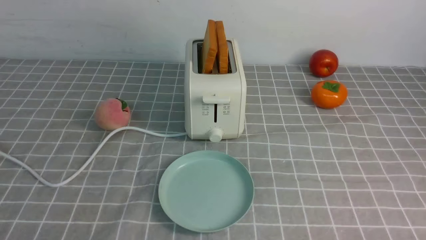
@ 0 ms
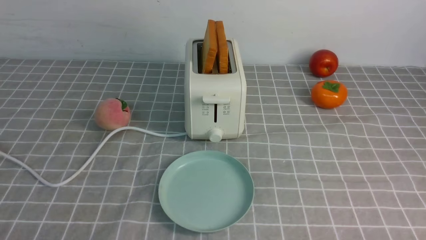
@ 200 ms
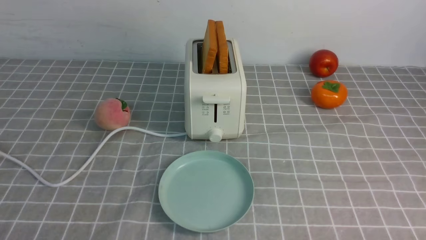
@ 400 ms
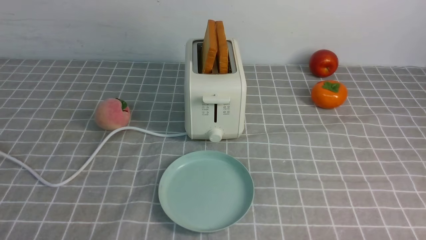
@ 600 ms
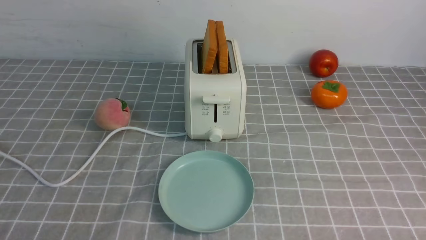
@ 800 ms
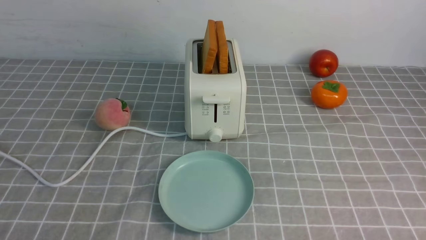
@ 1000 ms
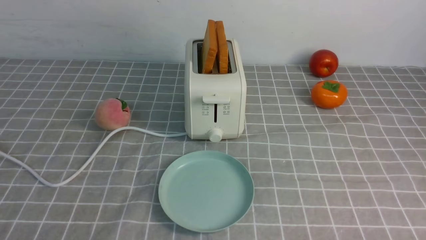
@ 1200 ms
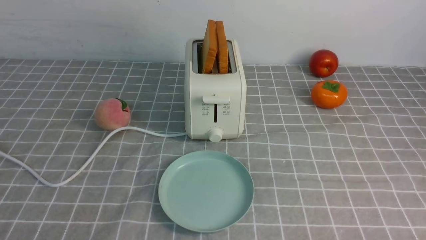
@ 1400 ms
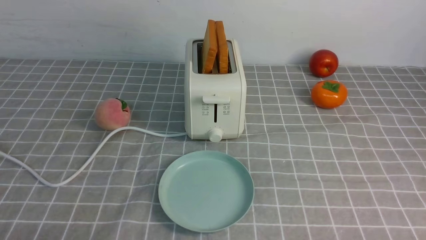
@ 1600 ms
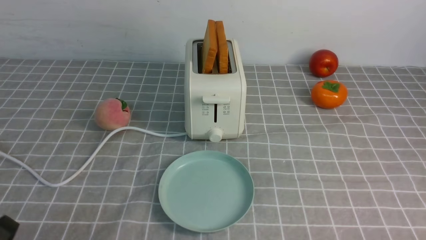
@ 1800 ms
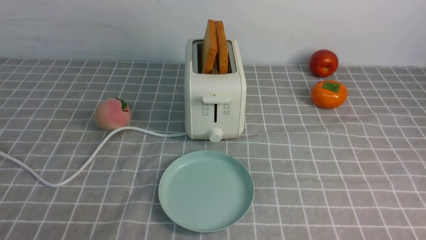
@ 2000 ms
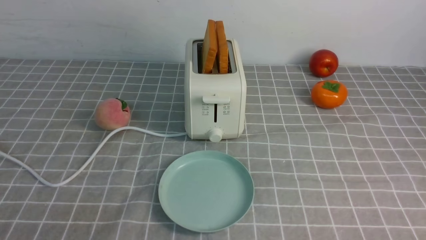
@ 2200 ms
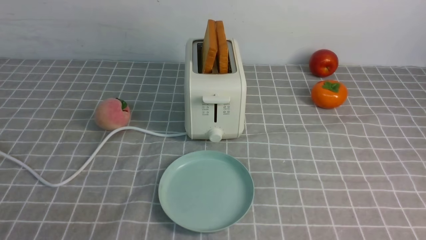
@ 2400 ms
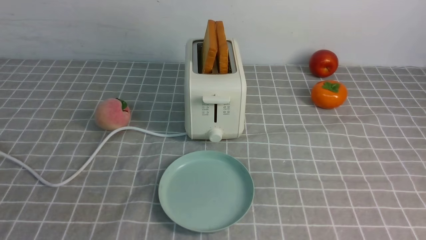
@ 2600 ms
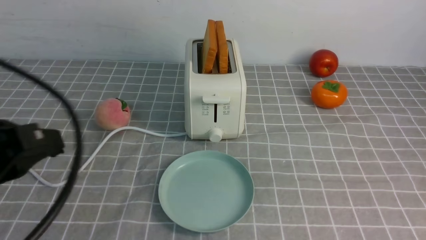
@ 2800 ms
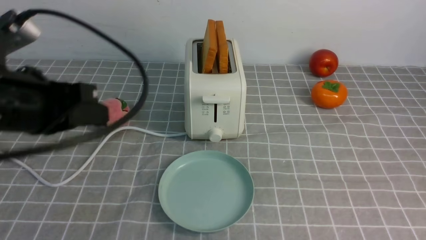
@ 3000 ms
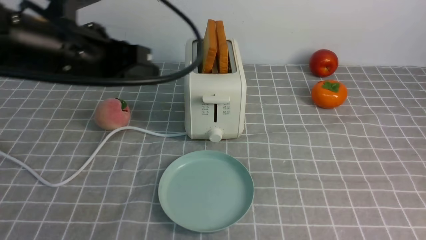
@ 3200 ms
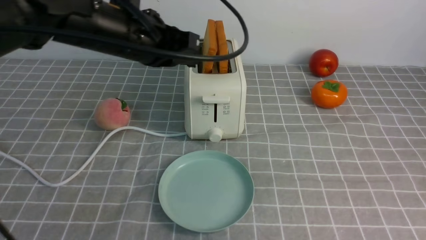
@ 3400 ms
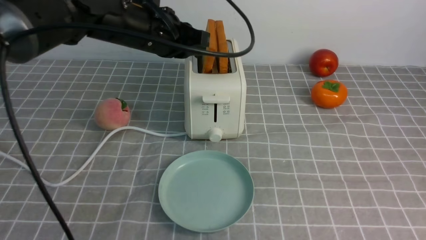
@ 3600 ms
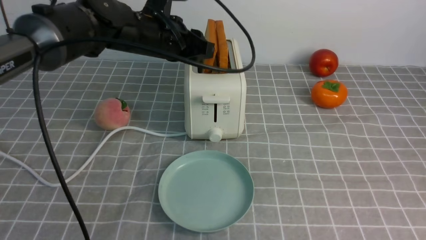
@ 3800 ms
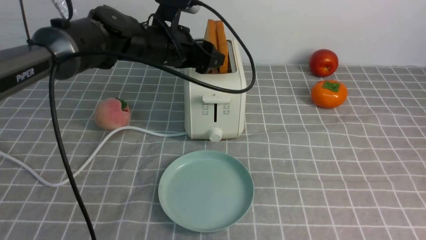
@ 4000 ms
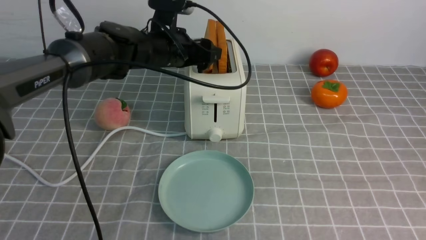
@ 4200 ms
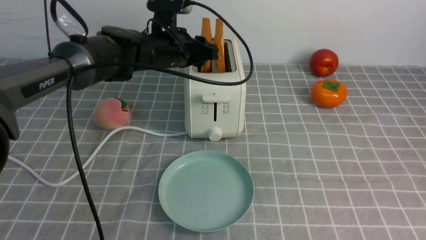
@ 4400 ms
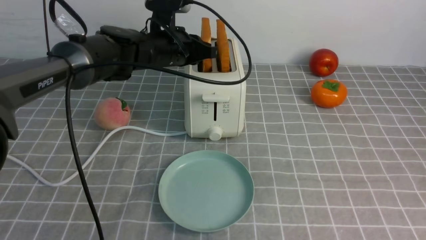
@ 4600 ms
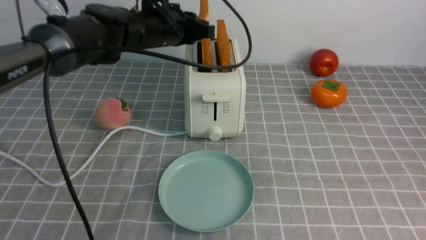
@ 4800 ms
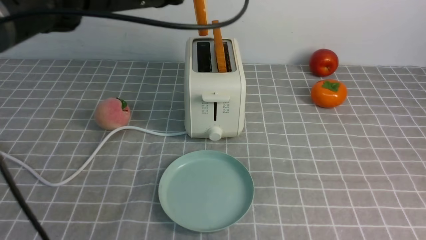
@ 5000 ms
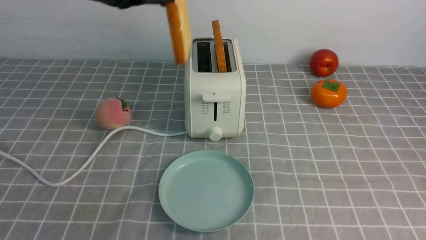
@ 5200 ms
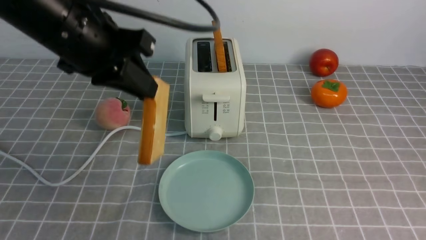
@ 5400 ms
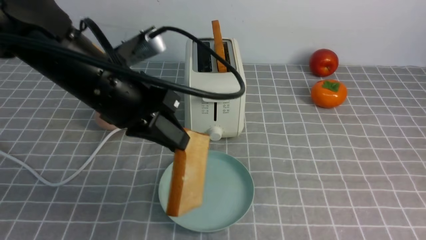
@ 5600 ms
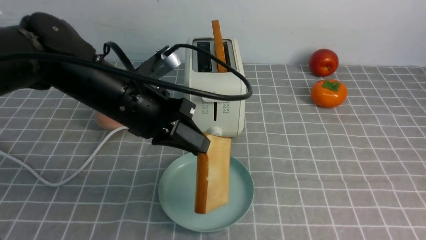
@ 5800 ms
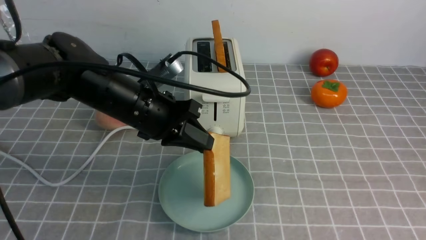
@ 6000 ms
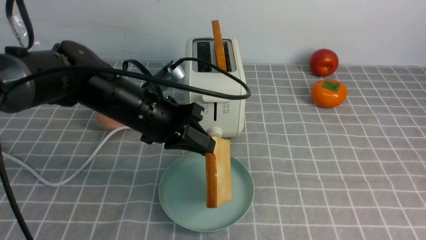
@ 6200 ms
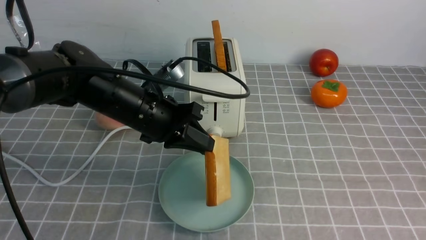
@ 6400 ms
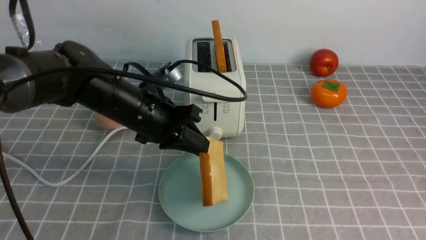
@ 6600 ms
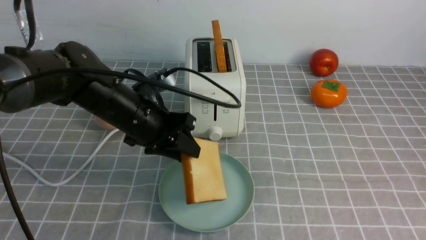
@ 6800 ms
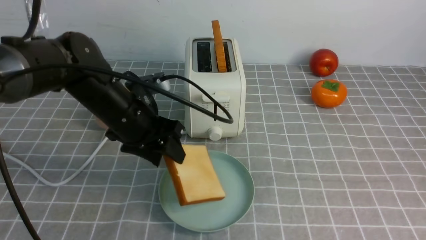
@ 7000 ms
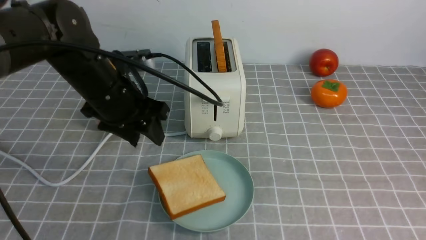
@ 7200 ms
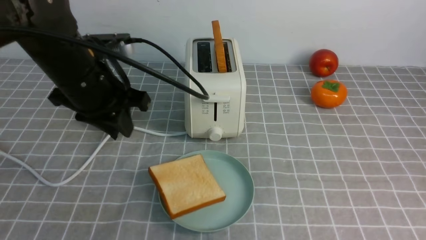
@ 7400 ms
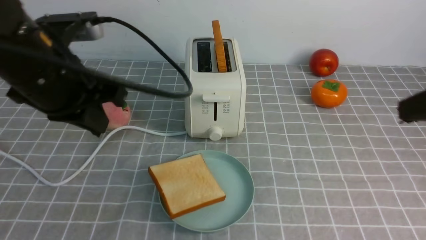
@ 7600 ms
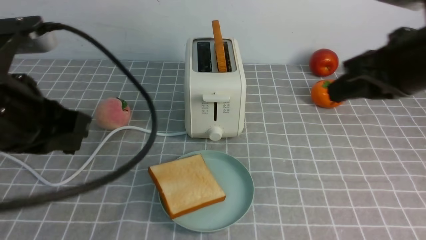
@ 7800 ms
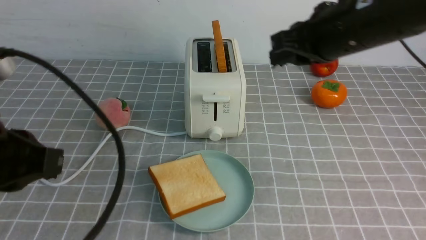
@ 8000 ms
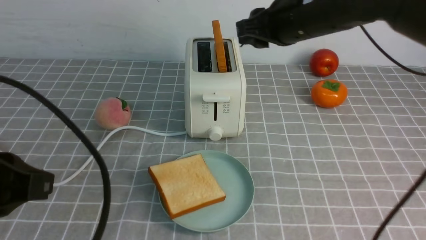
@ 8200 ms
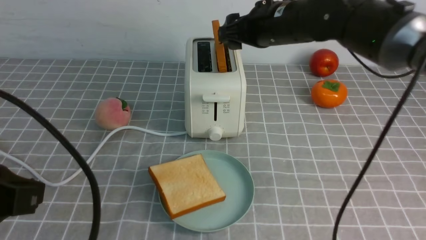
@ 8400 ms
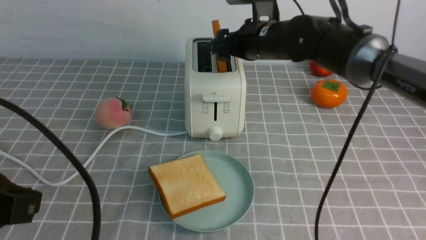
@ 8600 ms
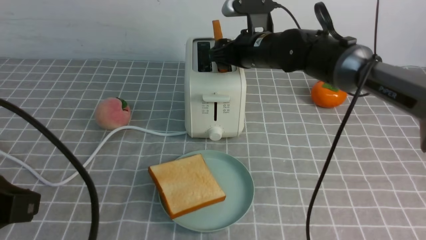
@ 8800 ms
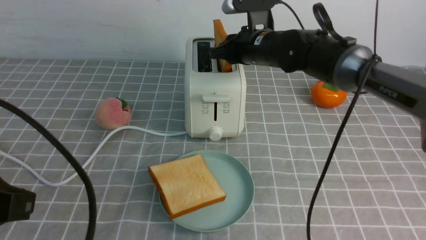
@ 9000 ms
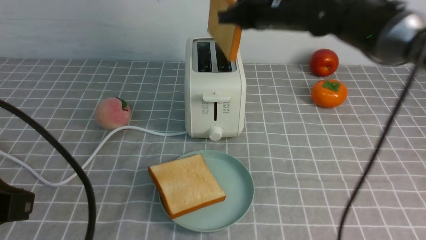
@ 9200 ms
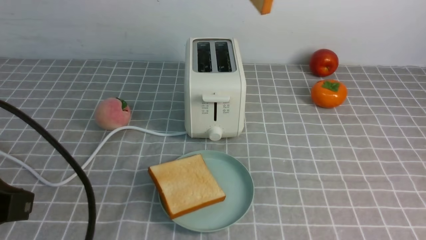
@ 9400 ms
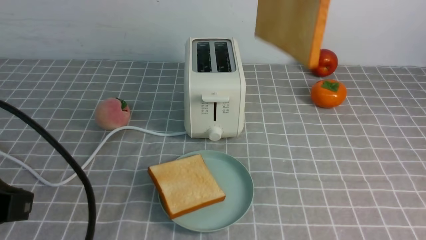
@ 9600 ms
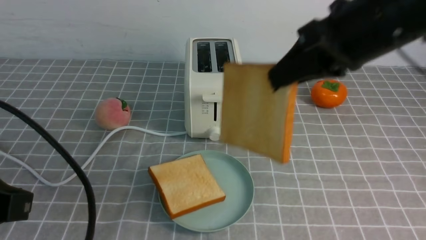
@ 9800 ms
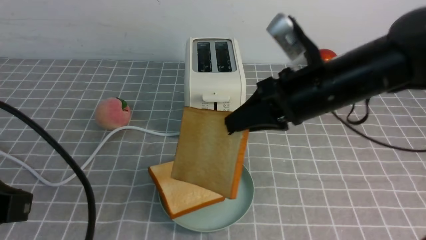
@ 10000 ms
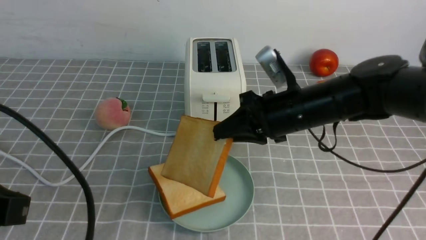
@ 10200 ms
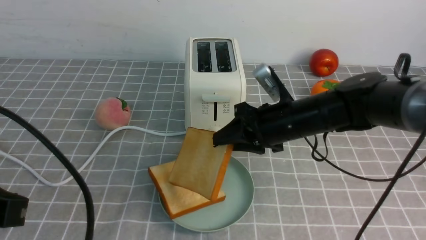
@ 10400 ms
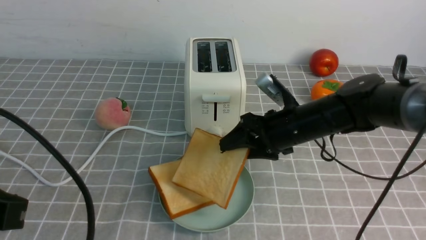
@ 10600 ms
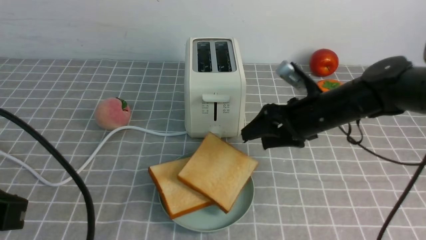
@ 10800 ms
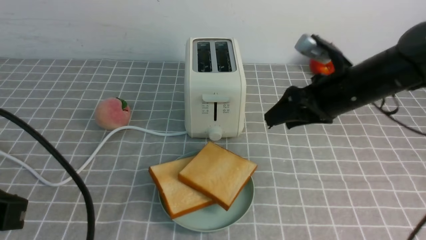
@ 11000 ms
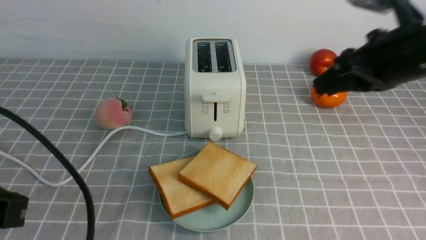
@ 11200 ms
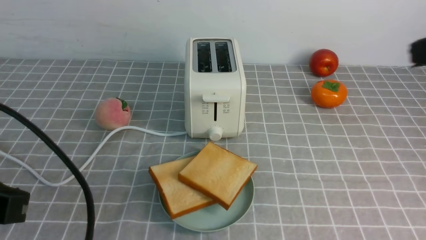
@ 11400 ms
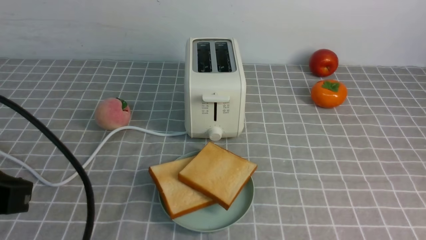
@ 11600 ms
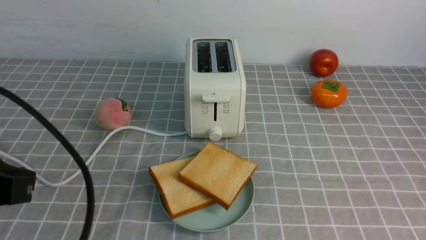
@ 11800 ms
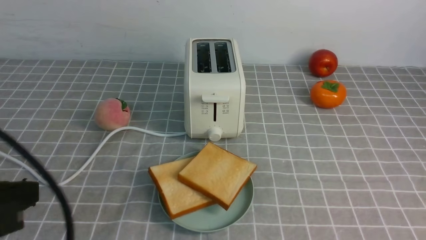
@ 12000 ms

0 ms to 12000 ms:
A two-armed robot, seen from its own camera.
Task of the whole recording: take toasted bread from bread machine on grey coffee table place on plate.
Step, 0 ms to 4800 ms: use the left arm to take out a slice of bread.
Step, 5200 ms to 7000 ms: use the left arm to put a slice of bread into the empty plate.
Step, 7200 ms to 9200 ms: use the right arm to take out a slice of bread.
Step, 9600 ms to 10800 ms: use the right arm to put a slice of bread into the plate.
1600 ms to 3000 ms: The left gripper is displaced upward and forward by some 25 cm, and closes up.
3000 ms to 4400 ms: The left gripper moves forward and to the right, approximately 30 cm, and opens its fingers.
4400 ms to 6000 ms: The left gripper travels backward by roughly 15 cm, and closes its fingers.
6000 ms to 7600 ms: The right gripper shifts approximately 5 cm forward. Meanwhile the left gripper is displaced upward and to the left by approximately 10 cm, and opens and closes again.
7600 ms to 9000 ms: The right gripper moves forward and to the left, roughly 35 cm, and opens. Meanwhile the left gripper travels backward by roughly 15 cm.
9000 ms to 10400 ms: The right gripper travels backward by some 10 cm, and reaches approximately 20 cm upward, then returns.
10400 ms to 12000 ms: The right gripper heads backward and to the right, covering about 35 cm, and closes.

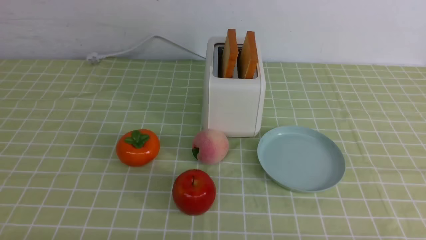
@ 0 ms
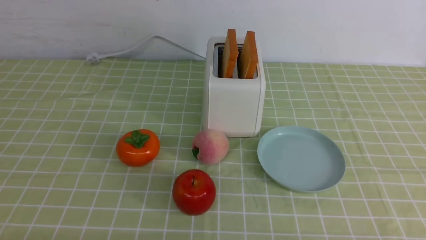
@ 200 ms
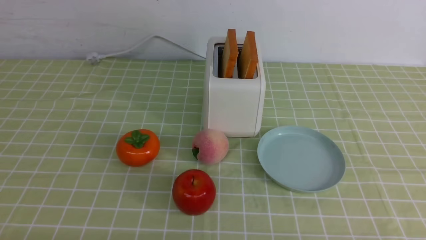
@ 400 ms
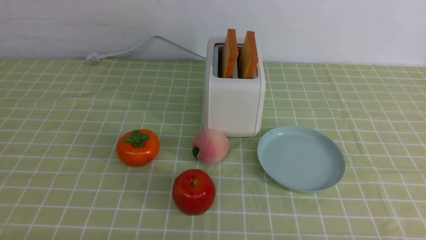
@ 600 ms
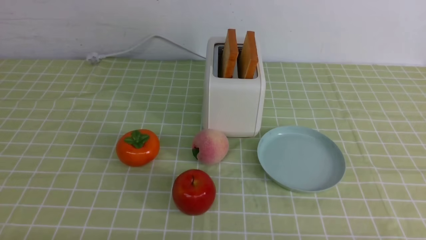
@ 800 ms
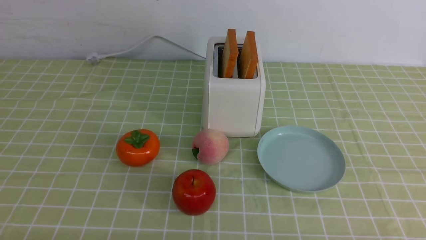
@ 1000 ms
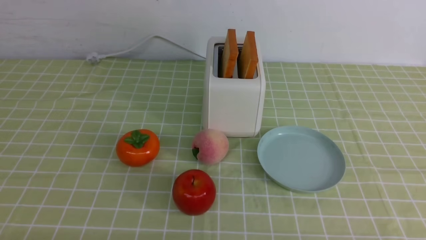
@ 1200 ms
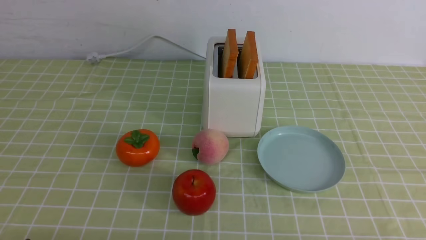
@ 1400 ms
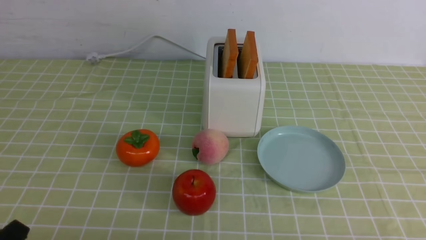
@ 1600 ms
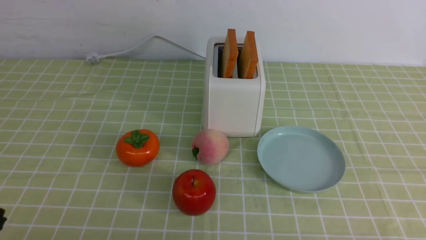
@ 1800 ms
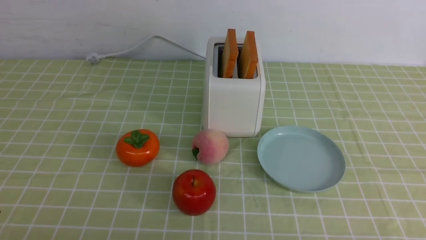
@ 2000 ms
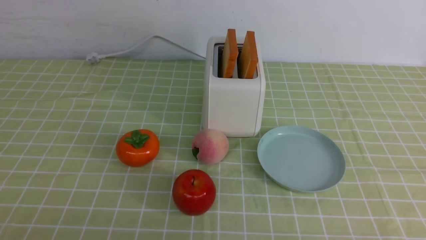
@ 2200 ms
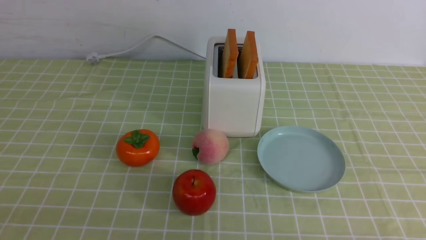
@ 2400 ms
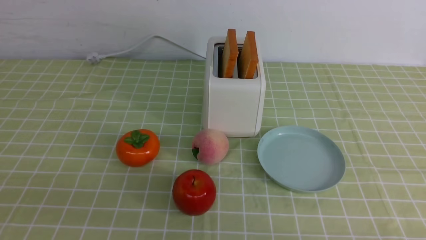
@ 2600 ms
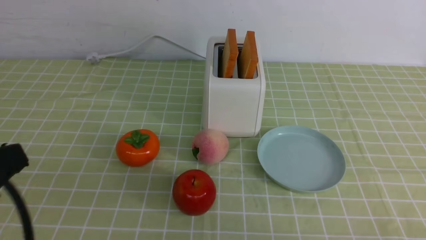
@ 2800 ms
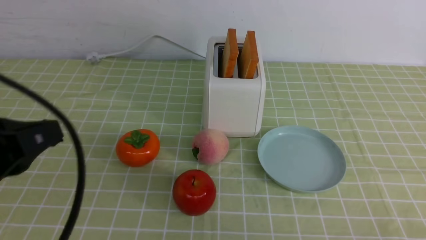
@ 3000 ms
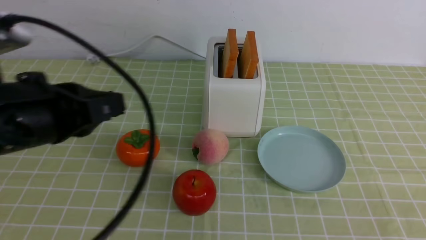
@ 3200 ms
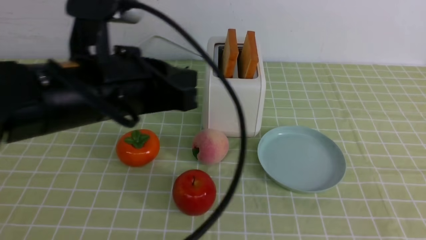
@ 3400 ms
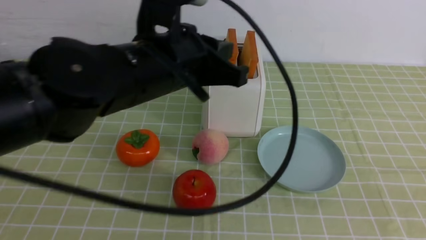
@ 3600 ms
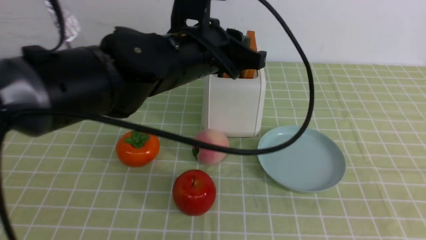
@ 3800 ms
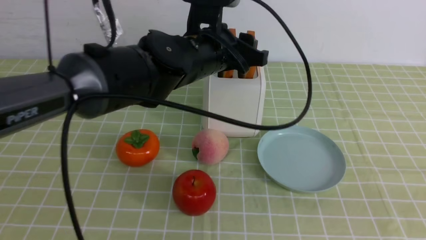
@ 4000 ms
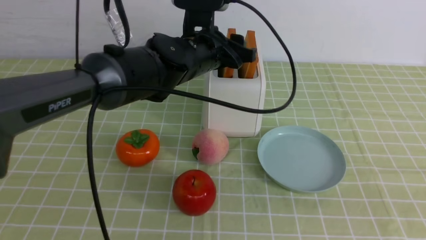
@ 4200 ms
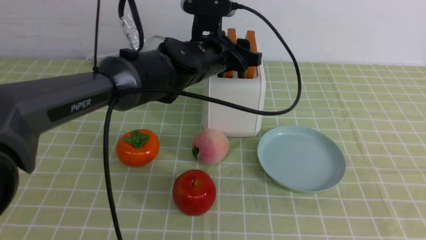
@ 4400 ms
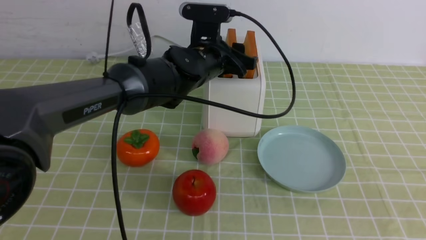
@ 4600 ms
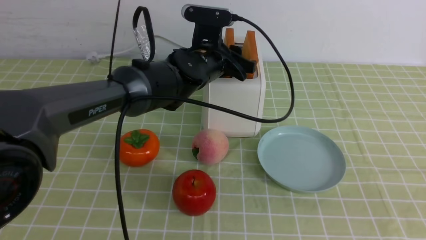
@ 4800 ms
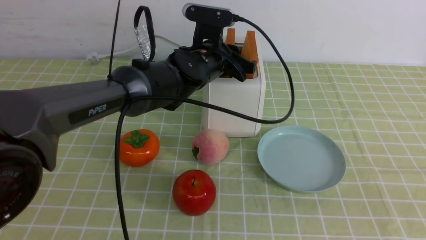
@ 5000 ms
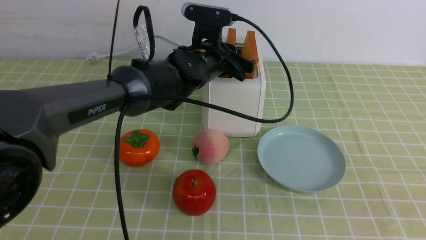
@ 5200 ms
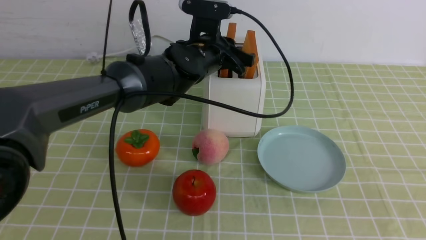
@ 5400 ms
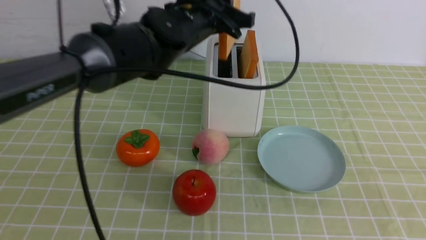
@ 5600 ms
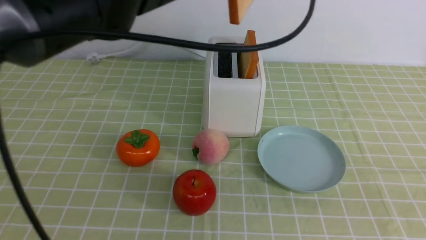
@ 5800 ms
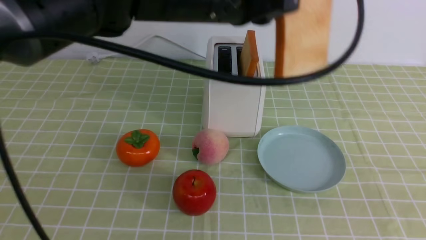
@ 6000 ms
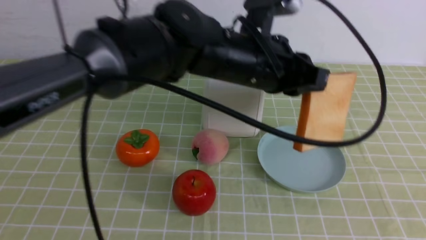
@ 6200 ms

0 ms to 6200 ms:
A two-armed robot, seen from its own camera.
Task of the whole recording: take toasted bread from bread machine on green coffee tablecloth place on plate.
Step, 0 ms to 5600 ms: use the left arm to take out a slice of bread.
1600 ms to 3200 ms: The left gripper moves upward, forward and to the right, roughly 25 cm, and closes up, while the right gripper shifts approximately 10 cm upward.
3200 ms to 4600 ms: The left gripper is displaced forward and to the right by some 30 cm, and opens. The right gripper heads upward, covering about 5 cm.
4600 ms to 6200 ms: The left gripper travels backward, upward and to the right by about 10 cm, and closes.
